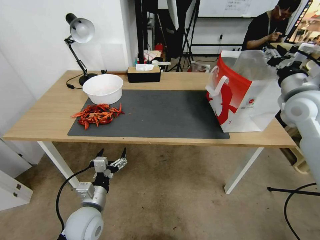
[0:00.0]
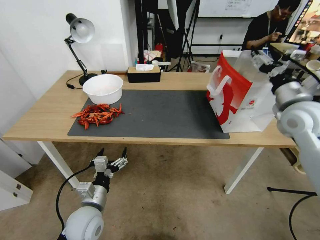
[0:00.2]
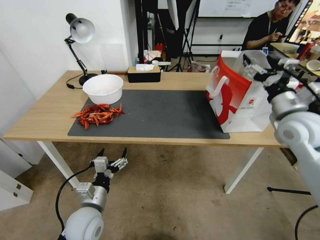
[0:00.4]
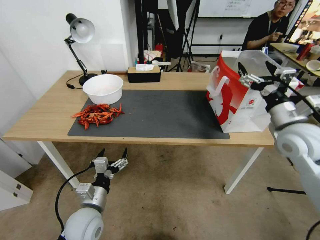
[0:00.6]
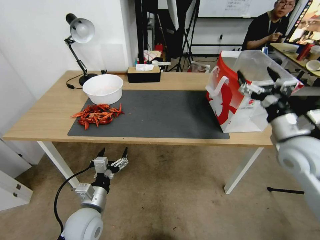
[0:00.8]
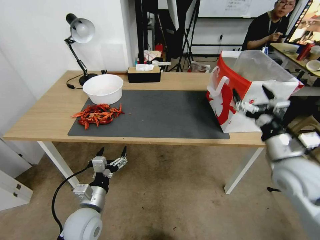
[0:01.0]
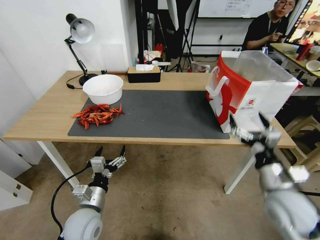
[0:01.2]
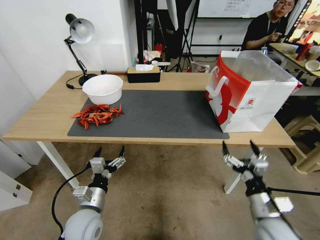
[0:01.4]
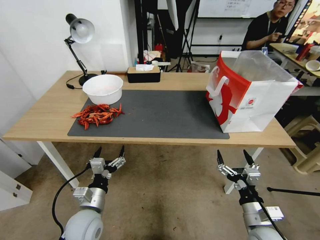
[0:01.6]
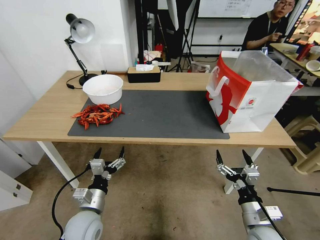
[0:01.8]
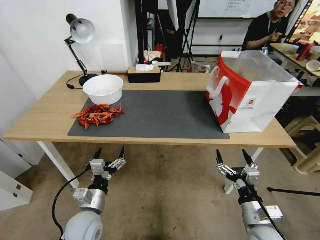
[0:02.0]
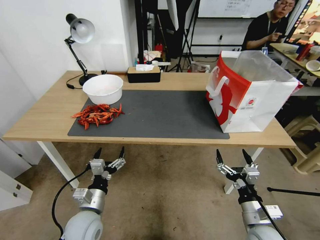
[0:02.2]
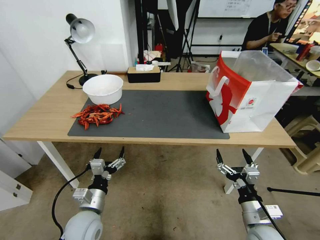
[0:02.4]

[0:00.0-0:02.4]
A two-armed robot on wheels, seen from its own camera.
Task of the whole recording: Close the takeout container lid, then place the container into the takeout bag.
0:00.0 to 0:01.2: The right gripper travels backward and downward by approximately 25 cm, and opens its fingers.
0:01.2 to 0:02.4: The right gripper heads downward and backward, covering roughly 15 cm.

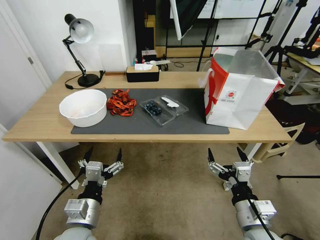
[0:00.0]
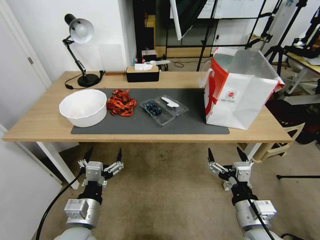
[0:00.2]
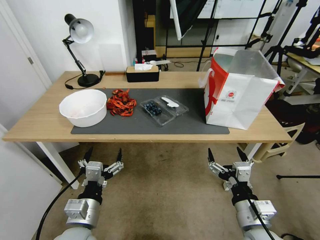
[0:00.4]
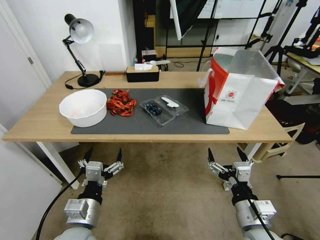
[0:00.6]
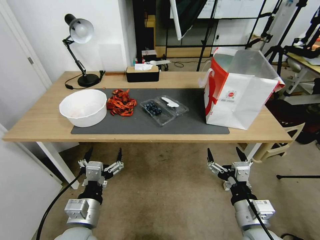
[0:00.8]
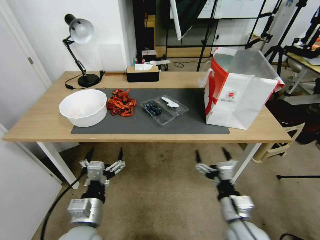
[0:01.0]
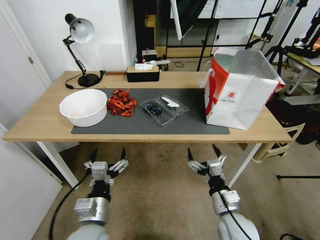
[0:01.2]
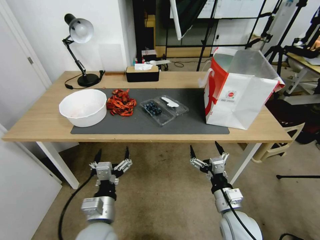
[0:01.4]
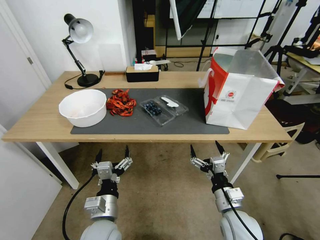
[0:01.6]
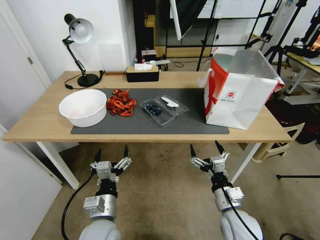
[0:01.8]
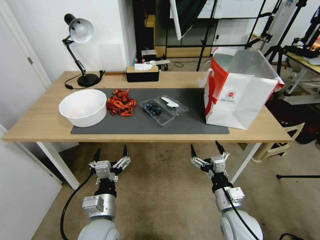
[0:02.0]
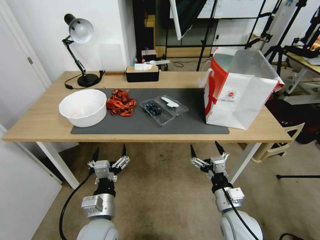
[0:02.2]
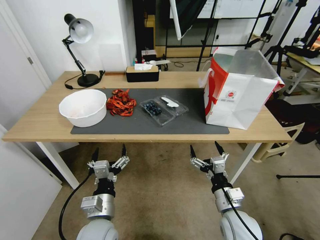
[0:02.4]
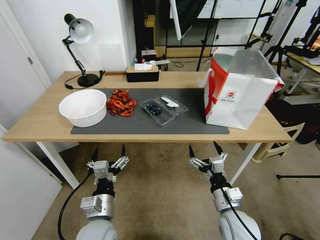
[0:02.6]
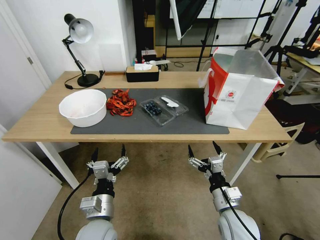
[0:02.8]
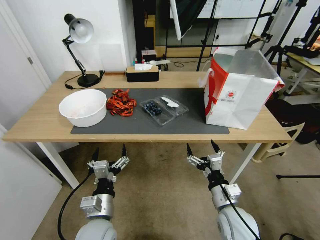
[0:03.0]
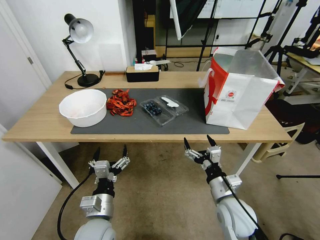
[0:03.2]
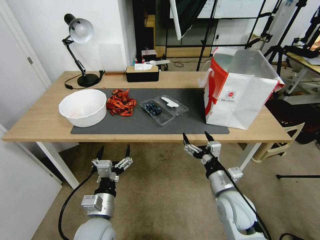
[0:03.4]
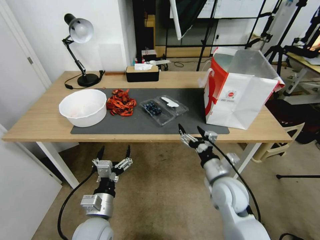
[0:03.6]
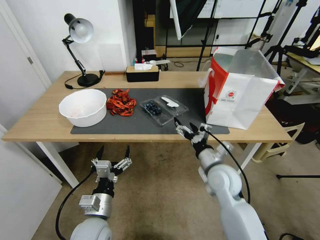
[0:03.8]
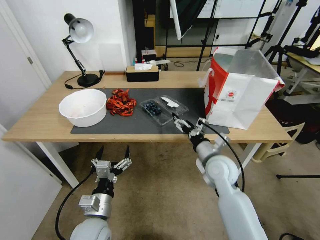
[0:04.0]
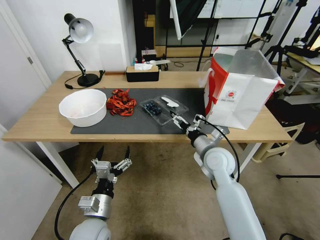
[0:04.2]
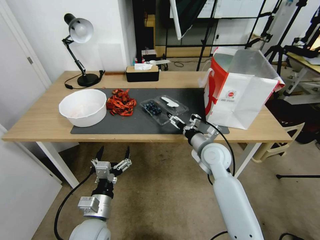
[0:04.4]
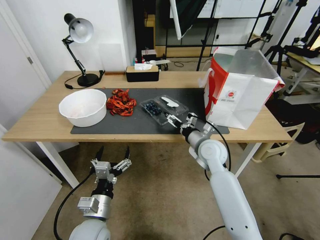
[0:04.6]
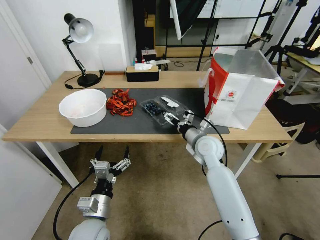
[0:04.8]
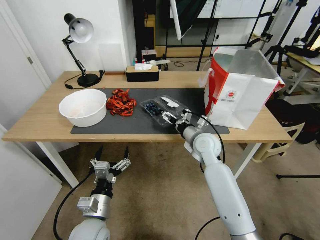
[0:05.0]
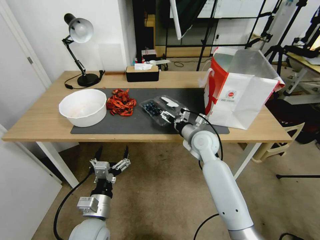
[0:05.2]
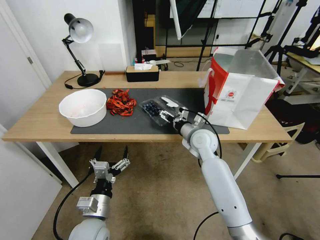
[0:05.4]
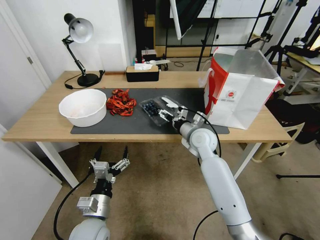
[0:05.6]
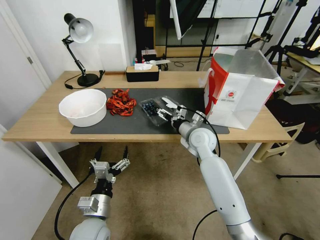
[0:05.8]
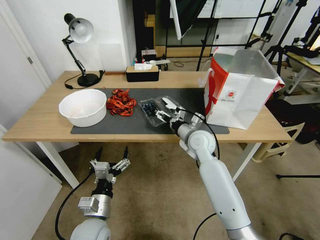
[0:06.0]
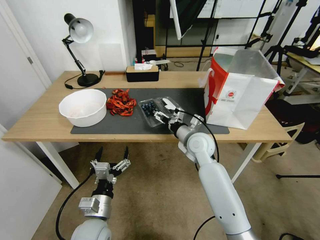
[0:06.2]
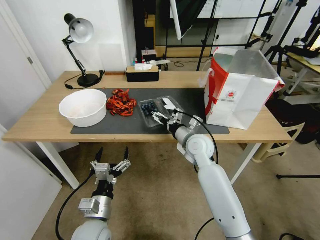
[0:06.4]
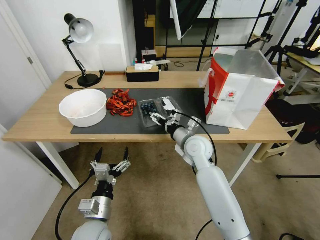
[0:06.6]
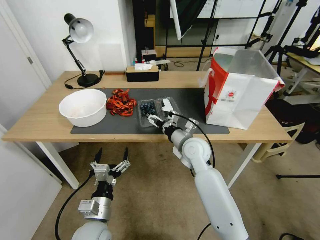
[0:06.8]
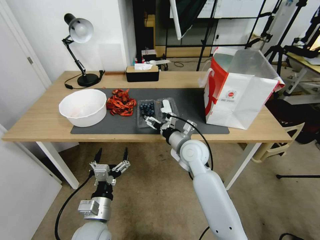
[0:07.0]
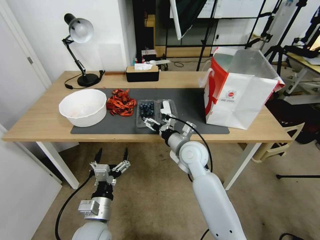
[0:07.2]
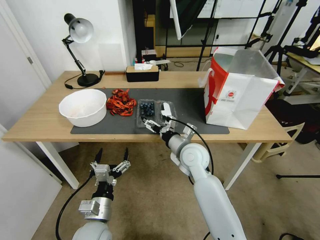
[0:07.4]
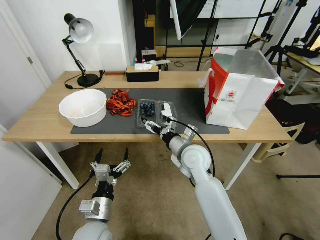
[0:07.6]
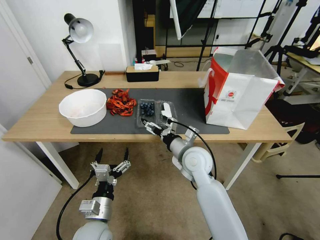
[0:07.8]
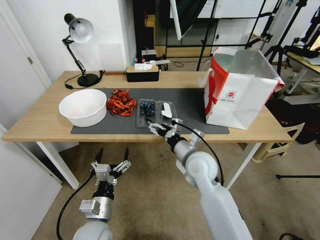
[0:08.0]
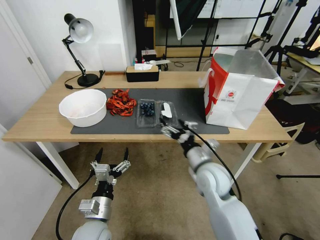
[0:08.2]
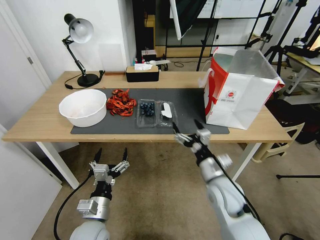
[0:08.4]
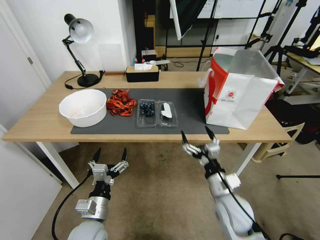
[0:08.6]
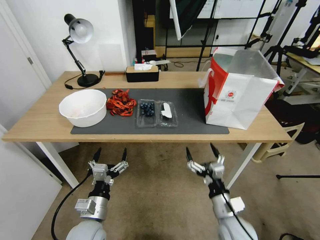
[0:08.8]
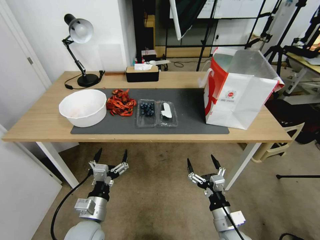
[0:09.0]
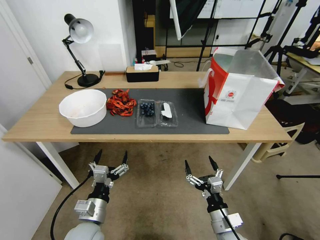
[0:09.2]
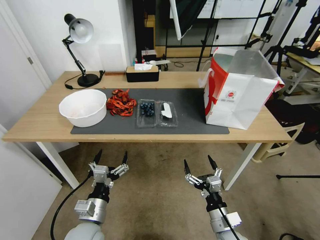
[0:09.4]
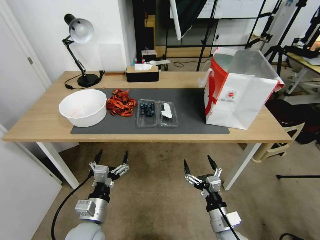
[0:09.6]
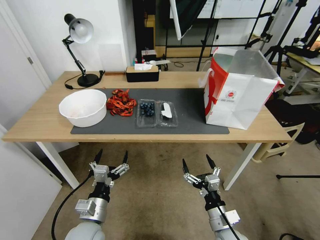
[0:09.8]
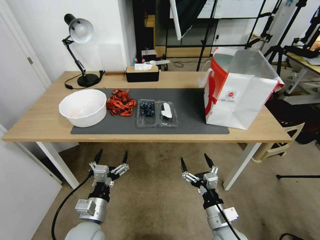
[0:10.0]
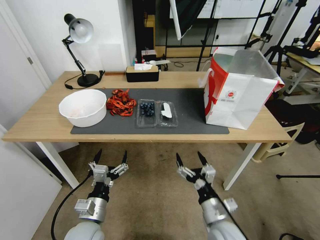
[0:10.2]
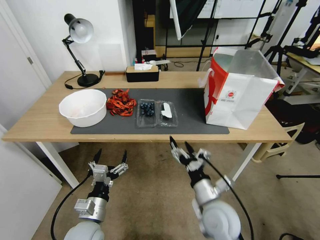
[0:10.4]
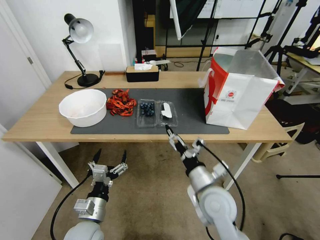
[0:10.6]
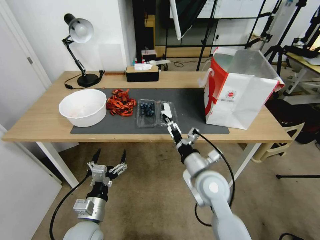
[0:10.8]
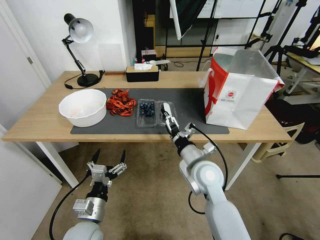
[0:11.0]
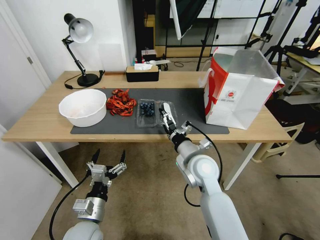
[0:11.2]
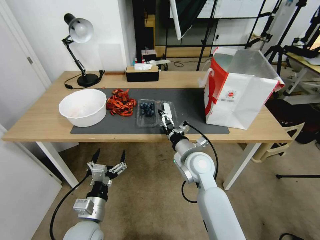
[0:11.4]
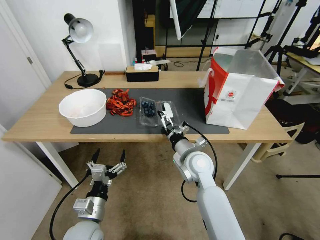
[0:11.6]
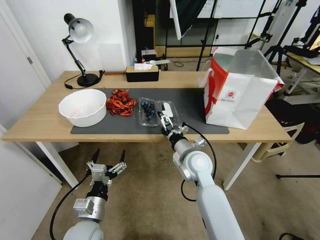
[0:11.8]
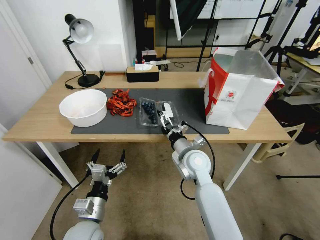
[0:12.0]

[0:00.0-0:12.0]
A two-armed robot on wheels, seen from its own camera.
Task of the whole recording: Close the takeout container lid, then place the container into the takeout bag.
0:01.6 to 0:03.0: There are only small adjustments of the grippers.
0:03.0 to 0:04.4: The right gripper moves forward, roughly 20 cm.
0:04.4 to 0:06.0: The right gripper goes roughly 5 cm forward.
0:06.0 to 0:07.6: The right gripper heads backward, covering about 5 cm.
0:07.6 to 0:09.0: The right gripper heads backward, downward and to the right, covering about 25 cm.
0:09.0 to 0:10.4: The right gripper heads upward, covering roughly 5 cm.
0:10.4 to 0:12.0: The right gripper moves forward, approximately 15 cm.

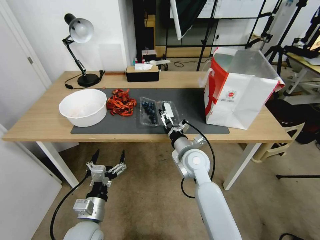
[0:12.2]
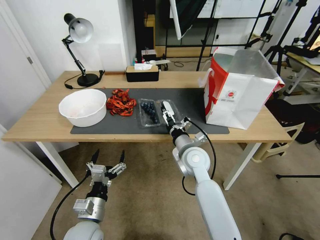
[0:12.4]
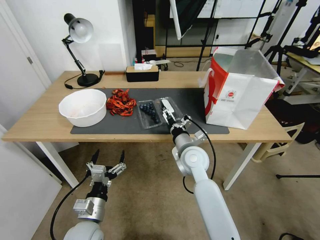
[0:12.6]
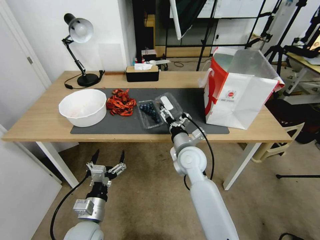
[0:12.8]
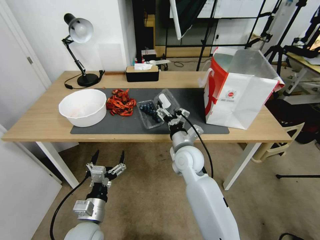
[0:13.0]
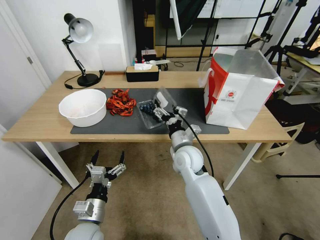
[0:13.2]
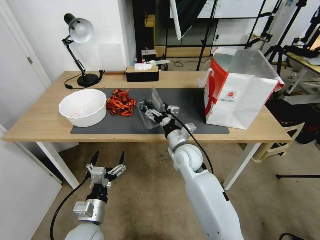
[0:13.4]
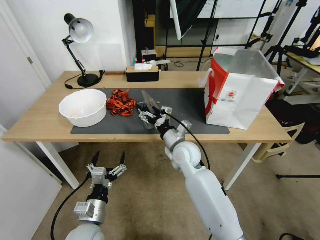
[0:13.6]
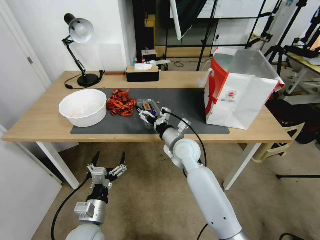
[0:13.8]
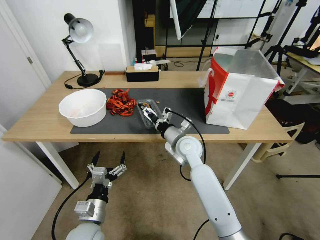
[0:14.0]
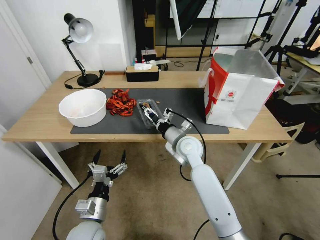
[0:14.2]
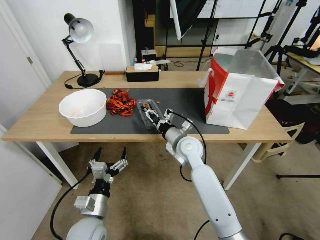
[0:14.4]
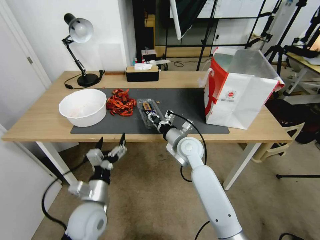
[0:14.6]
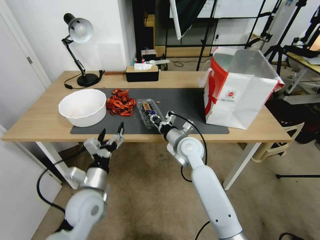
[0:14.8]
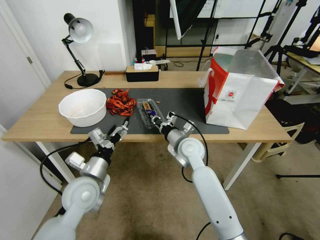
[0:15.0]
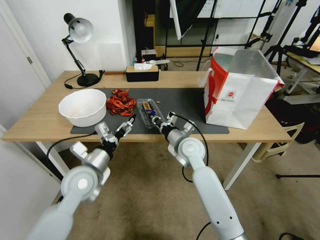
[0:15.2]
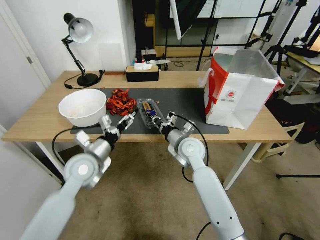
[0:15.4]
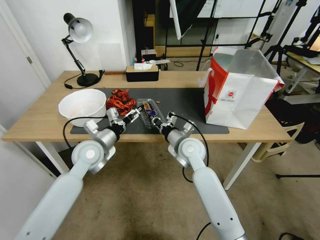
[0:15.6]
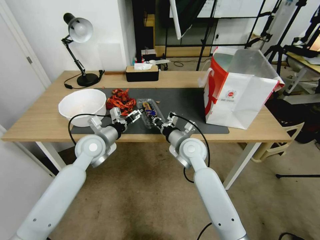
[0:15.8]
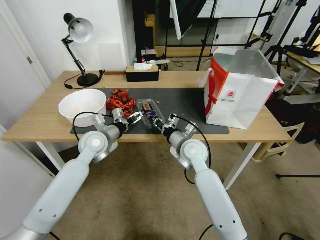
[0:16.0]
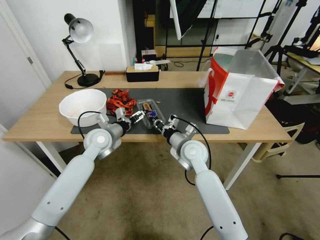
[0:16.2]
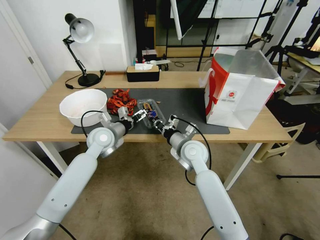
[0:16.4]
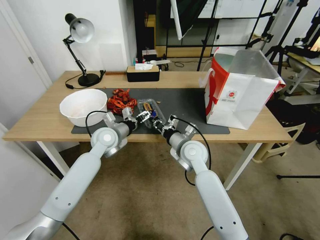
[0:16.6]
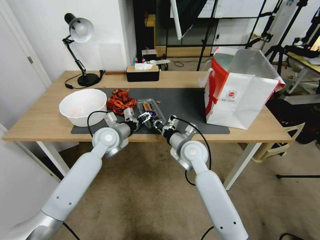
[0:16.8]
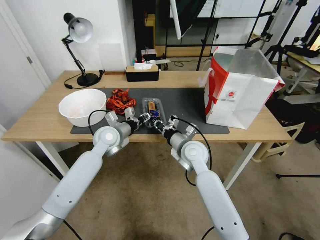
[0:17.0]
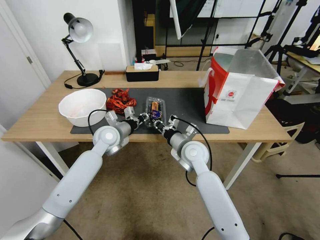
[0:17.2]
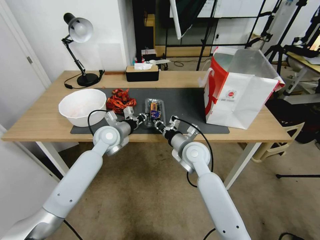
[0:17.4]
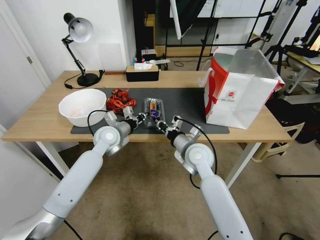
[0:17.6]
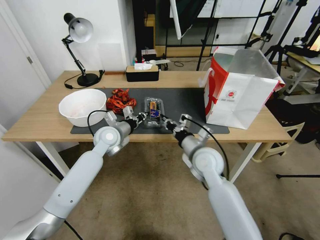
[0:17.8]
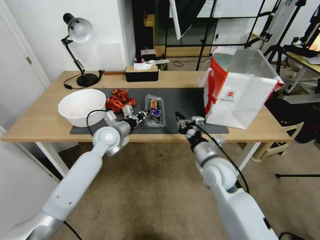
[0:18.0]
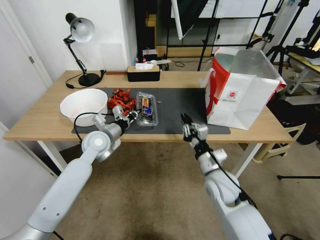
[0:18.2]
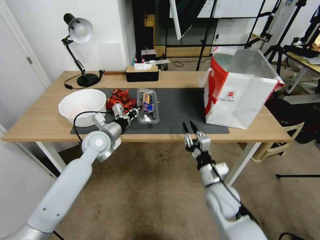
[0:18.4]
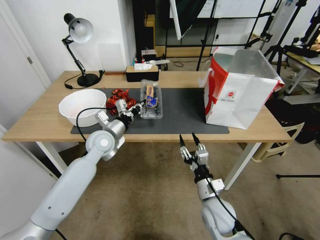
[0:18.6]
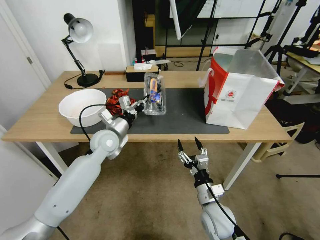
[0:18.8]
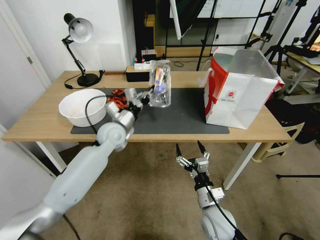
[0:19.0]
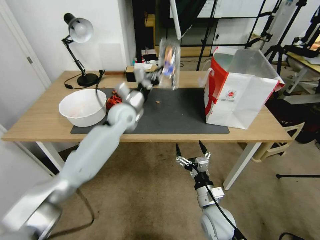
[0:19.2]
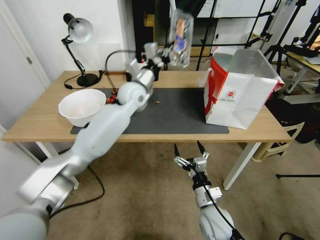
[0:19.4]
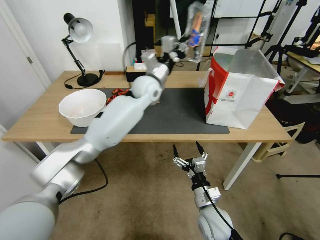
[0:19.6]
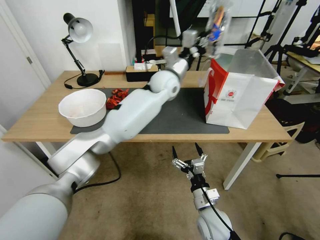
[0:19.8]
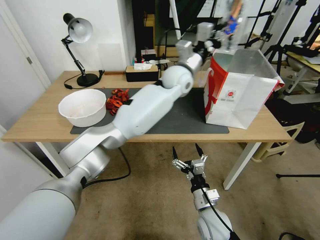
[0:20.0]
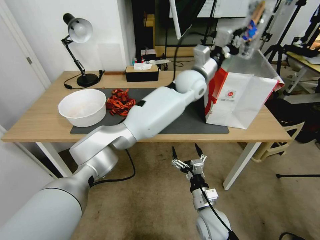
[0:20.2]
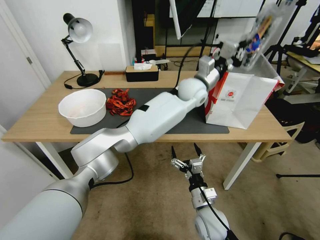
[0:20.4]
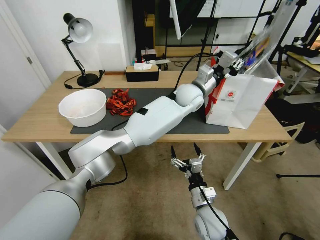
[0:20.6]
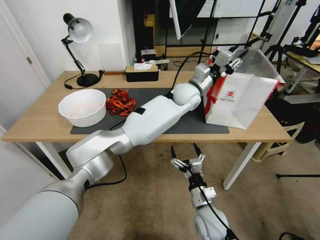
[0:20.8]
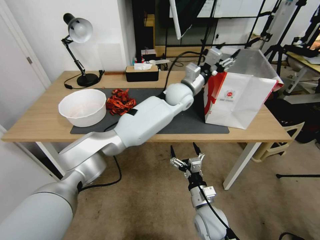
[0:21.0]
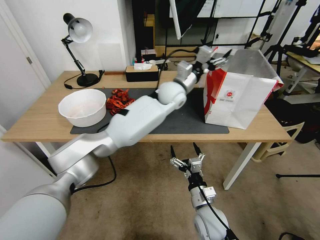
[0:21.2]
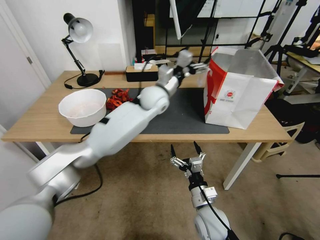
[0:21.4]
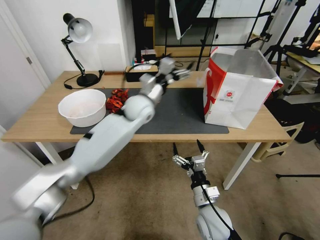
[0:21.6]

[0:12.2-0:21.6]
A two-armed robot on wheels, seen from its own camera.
Task of the whole recording: Close the takeout container lid, then place the container into the takeout bag.
0:13.8 to 0:15.4: The right gripper closes its fingers. The left gripper shifts some 20 cm forward and upward.
0:15.4 to 0:17.0: The left gripper moves forward, some 10 cm, and closes.
0:17.0 to 0:18.4: The left gripper closes up; the right gripper heads backward, to the right and downward, covering roughly 15 cm.
0:18.4 to 0:20.0: The left gripper travels to the right, upward and forward by approximately 35 cm. The right gripper ends up roughly 5 cm from where it was, and opens its fingers.
0:20.0 to 0:21.6: The left gripper heads to the left and downward, covering approximately 10 cm, and opens its fingers.
